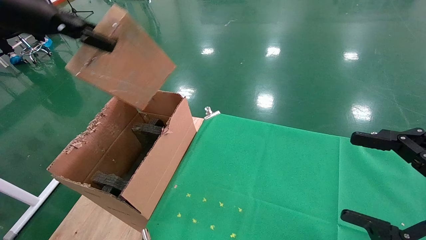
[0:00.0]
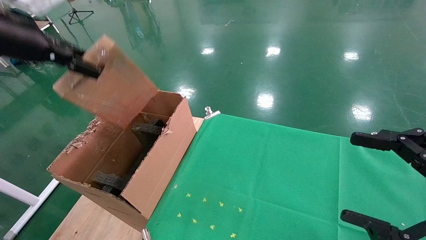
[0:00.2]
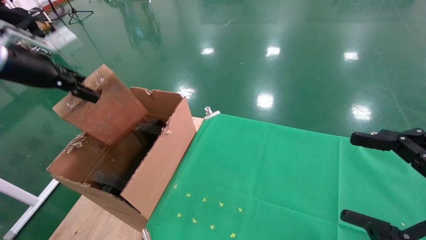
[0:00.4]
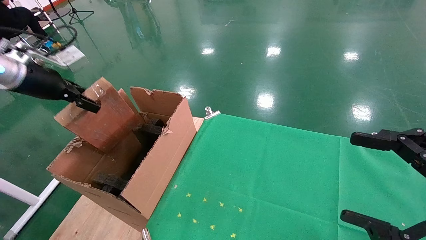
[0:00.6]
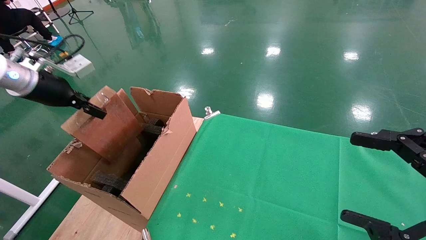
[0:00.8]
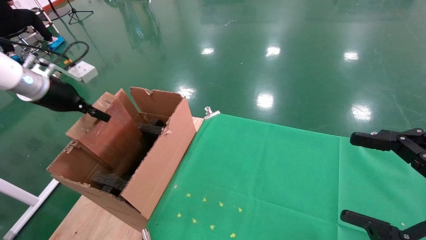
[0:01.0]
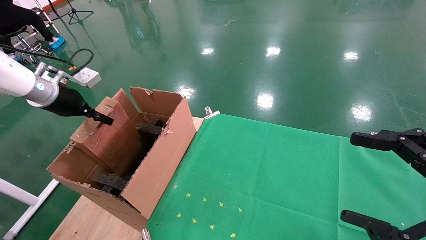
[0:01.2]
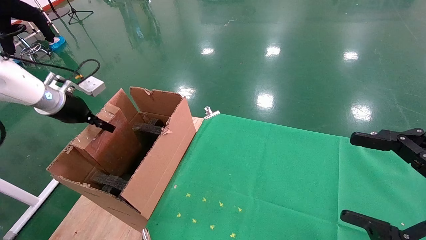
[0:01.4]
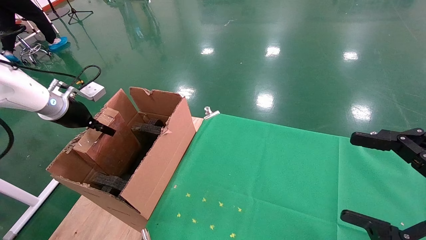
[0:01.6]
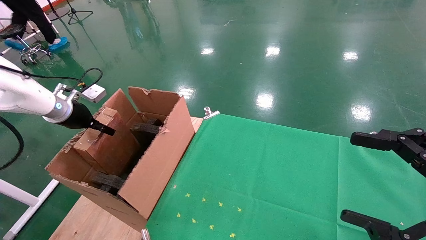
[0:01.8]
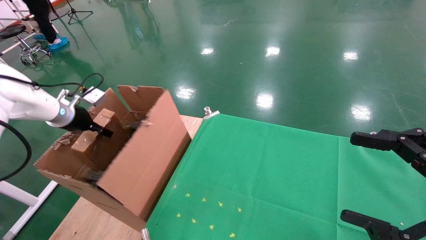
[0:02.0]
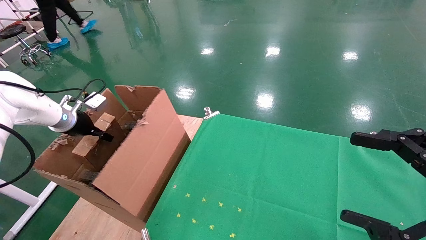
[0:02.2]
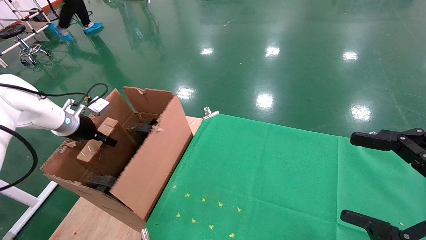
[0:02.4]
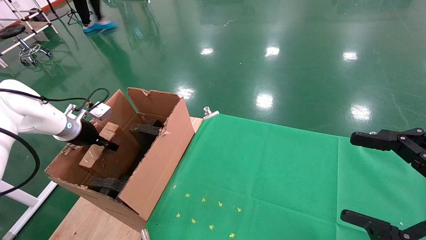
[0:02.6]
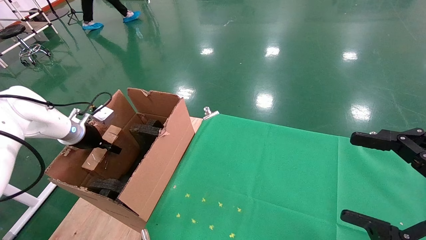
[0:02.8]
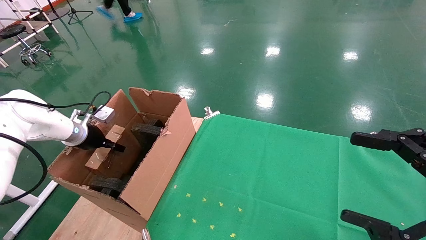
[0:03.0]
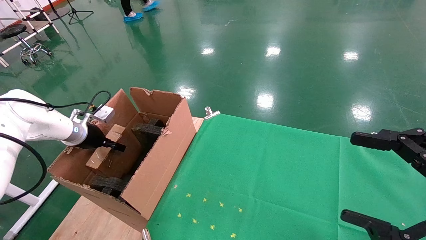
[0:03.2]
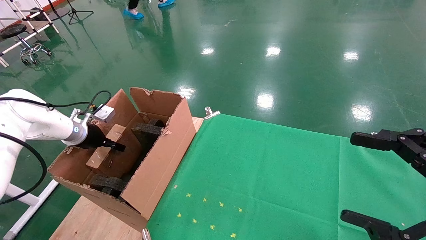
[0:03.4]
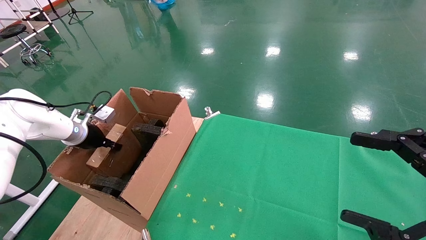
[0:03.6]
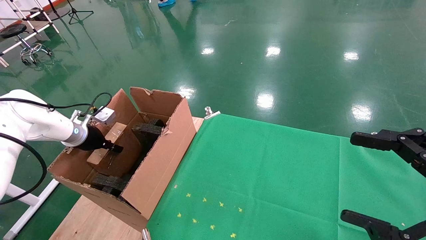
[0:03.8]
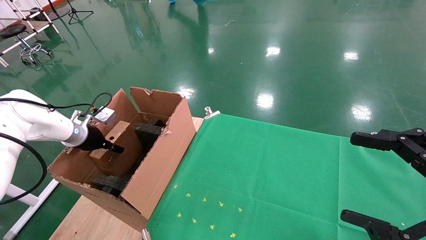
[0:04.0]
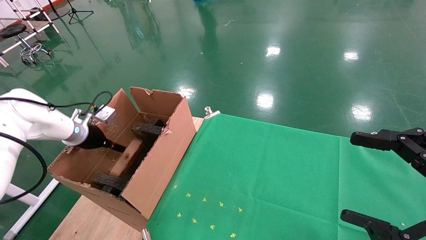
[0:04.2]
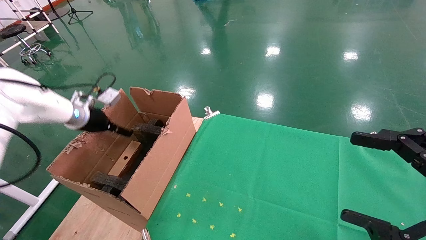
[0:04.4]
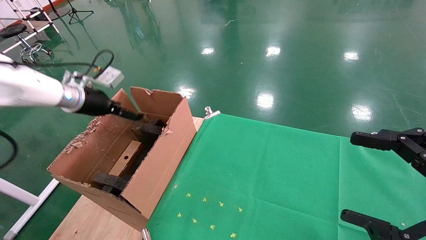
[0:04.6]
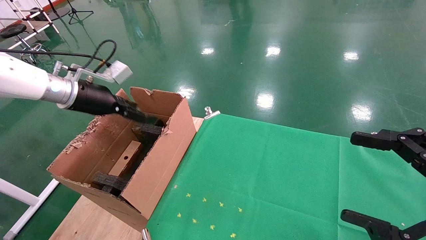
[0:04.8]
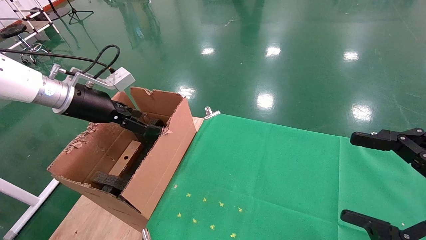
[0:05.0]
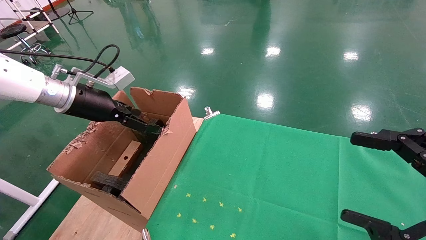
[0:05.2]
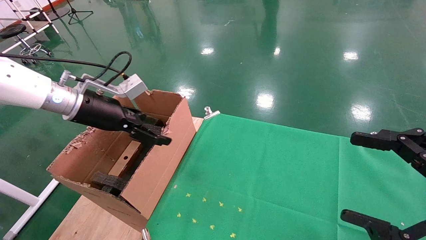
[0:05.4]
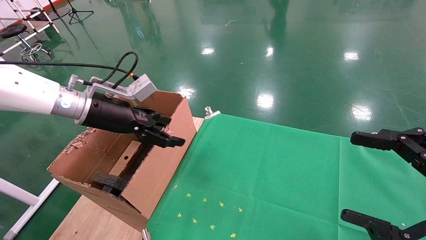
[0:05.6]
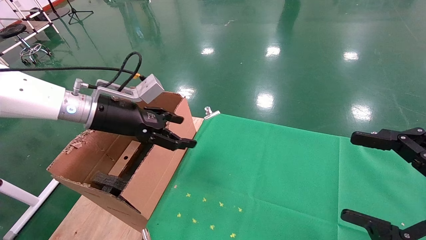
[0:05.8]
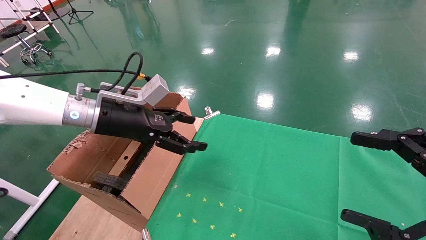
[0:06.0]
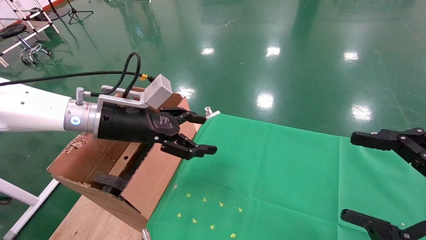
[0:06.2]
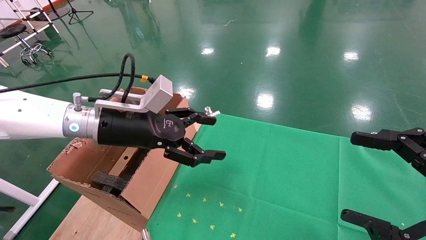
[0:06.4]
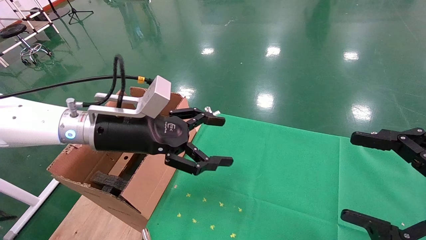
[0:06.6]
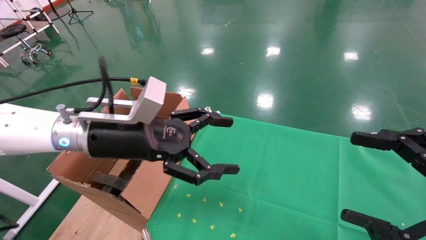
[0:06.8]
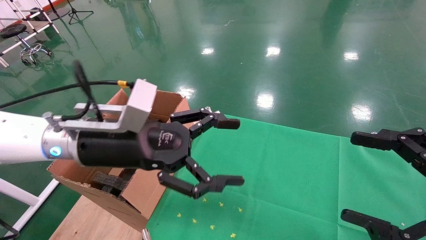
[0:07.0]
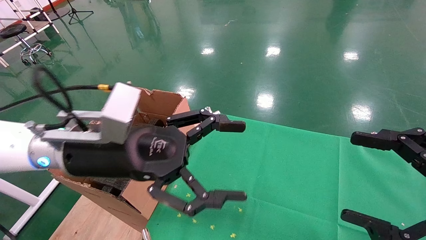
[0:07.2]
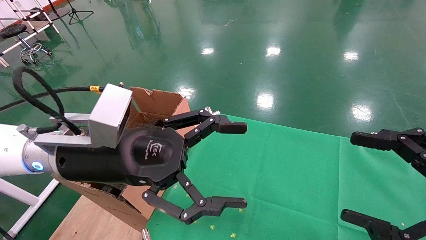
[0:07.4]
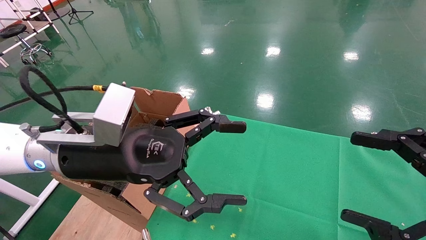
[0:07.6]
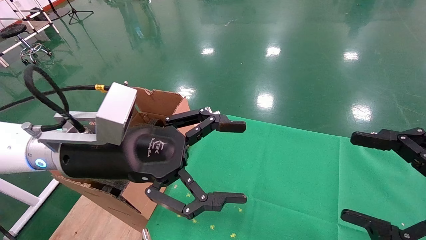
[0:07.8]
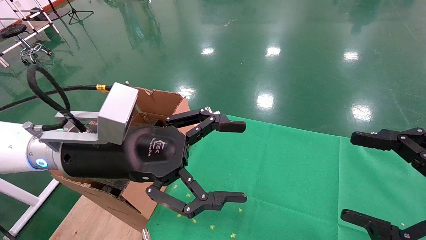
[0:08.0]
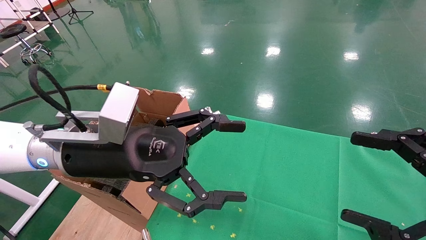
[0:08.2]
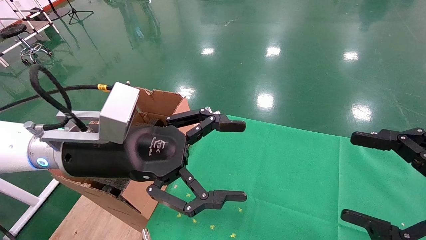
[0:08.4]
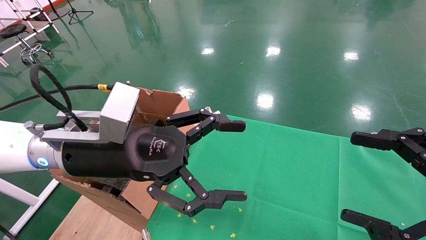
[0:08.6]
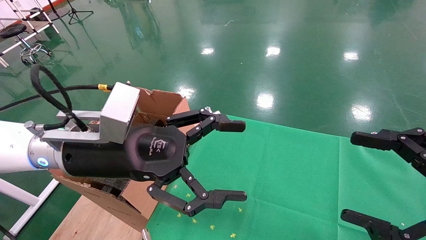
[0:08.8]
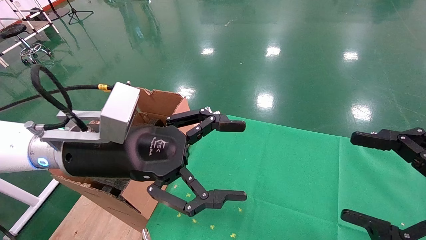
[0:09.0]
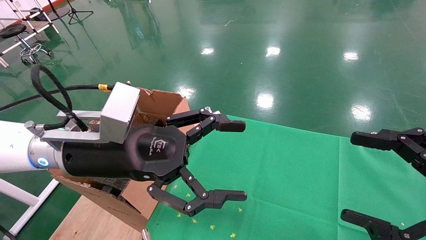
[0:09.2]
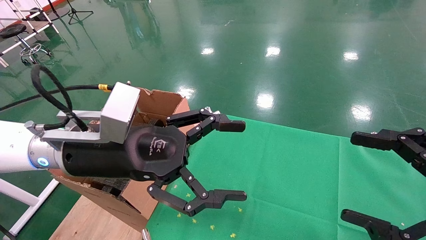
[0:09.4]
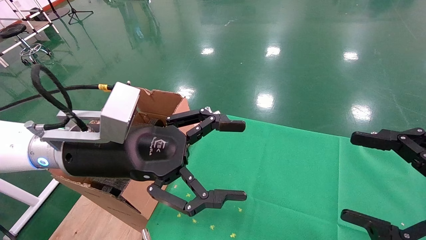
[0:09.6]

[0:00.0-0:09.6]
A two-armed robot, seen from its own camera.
Task of the whole recording: using a robotic arm to pick up a cardboard box and palace it the carton.
Step, 0:00.0 to 0:04.6: Place the mouse and the power cord paper box into the container.
0:00.0 to 0:01.6: The left gripper travels downward, forward and to the left by approximately 25 cm.
0:01.6 to 0:03.2: The left gripper goes about 10 cm downward.
0:03.2 to 0:04.8: The left gripper travels upward and to the right by approximately 15 cm, and opens up.
0:04.8 to 0:06.4: The left gripper is displaced to the right and backward by roughly 15 cm.
0:06.4 to 0:08.0: The left gripper moves backward, approximately 10 cm.
0:08.0 to 0:09.6: Neither gripper changes place.
